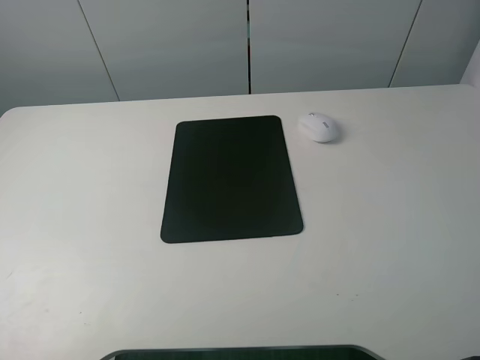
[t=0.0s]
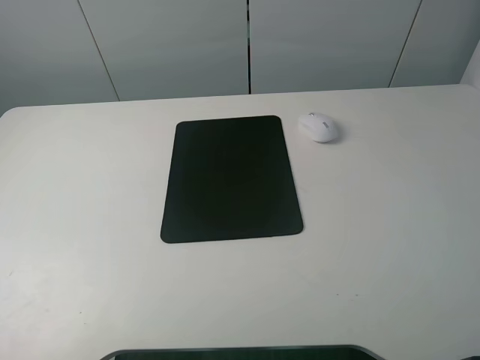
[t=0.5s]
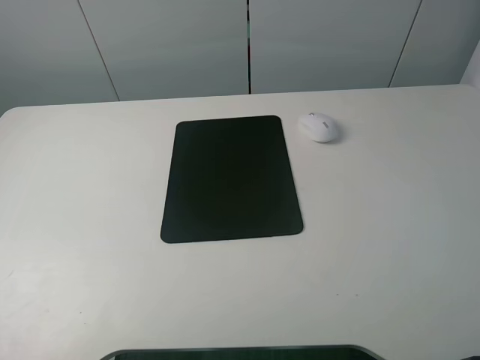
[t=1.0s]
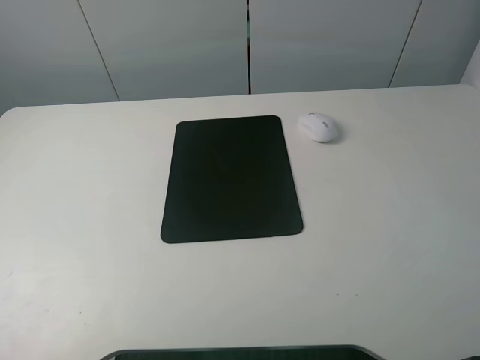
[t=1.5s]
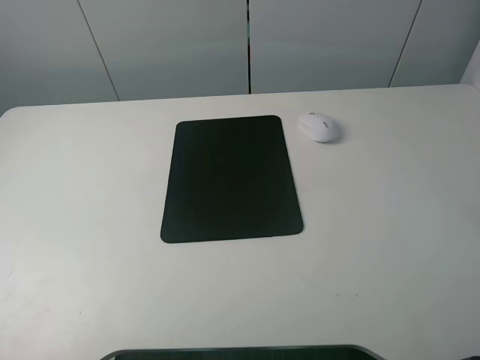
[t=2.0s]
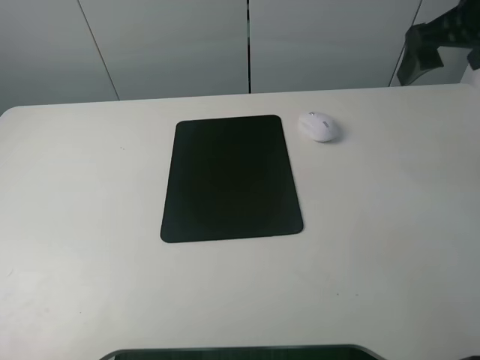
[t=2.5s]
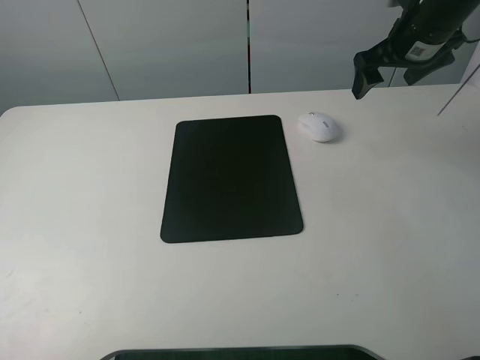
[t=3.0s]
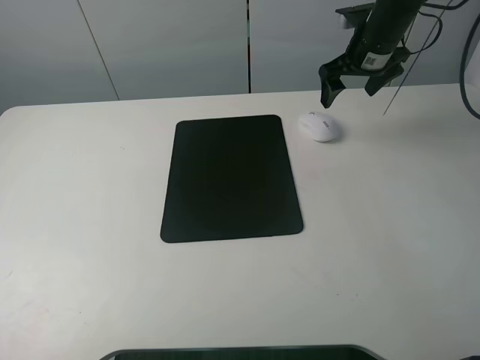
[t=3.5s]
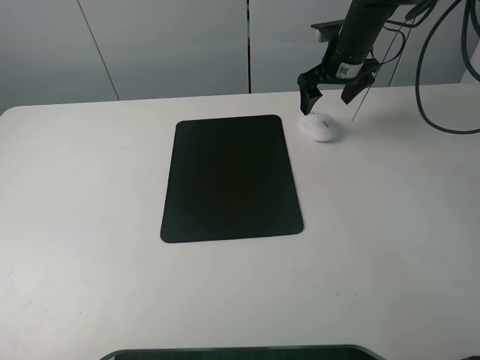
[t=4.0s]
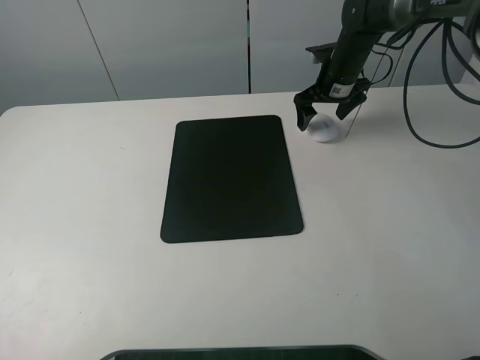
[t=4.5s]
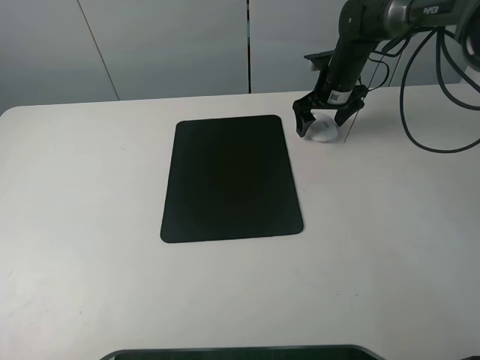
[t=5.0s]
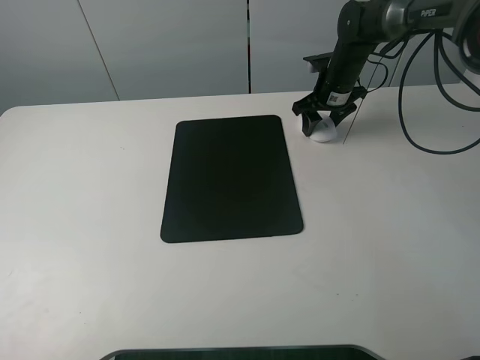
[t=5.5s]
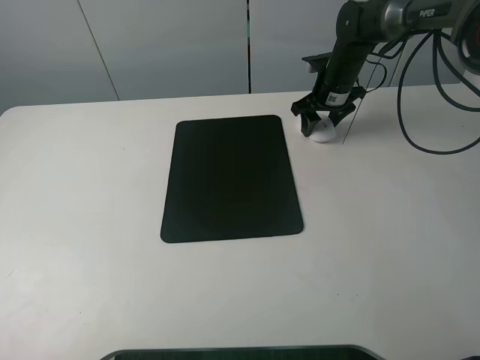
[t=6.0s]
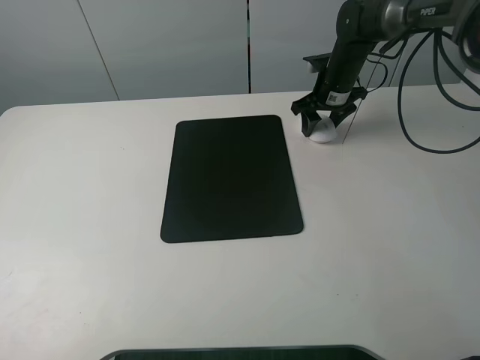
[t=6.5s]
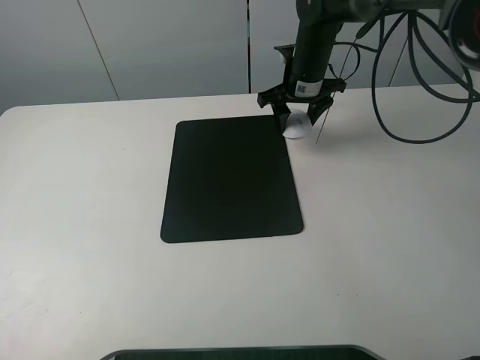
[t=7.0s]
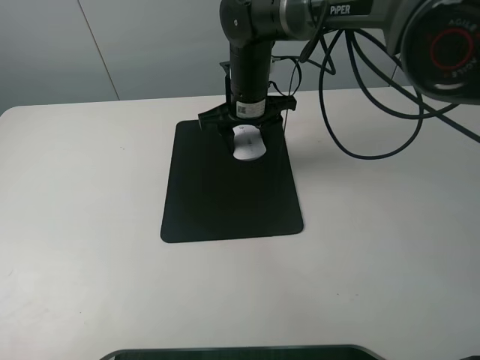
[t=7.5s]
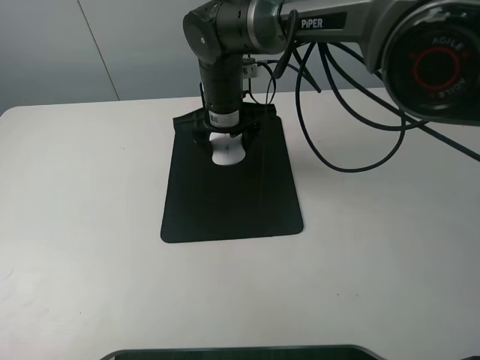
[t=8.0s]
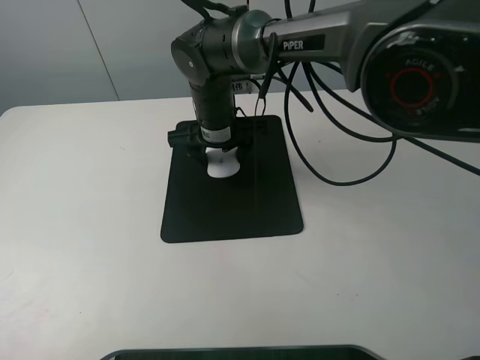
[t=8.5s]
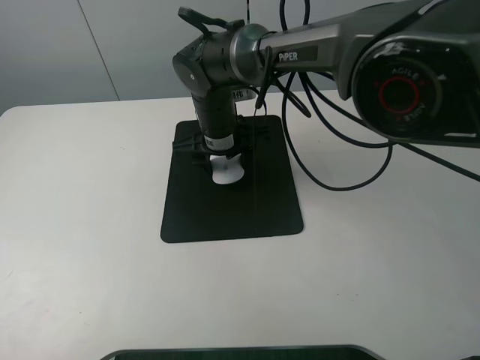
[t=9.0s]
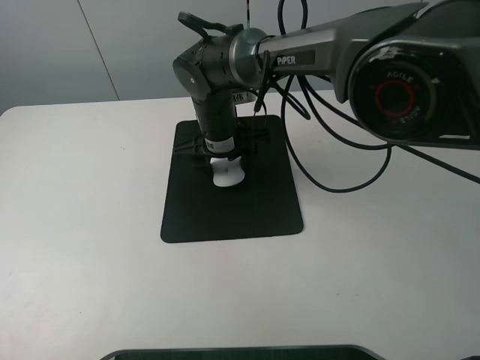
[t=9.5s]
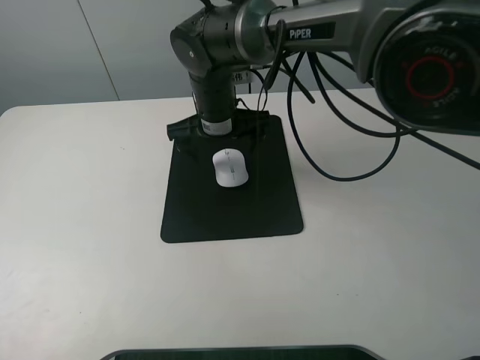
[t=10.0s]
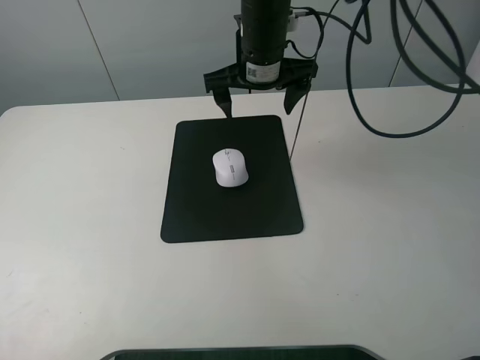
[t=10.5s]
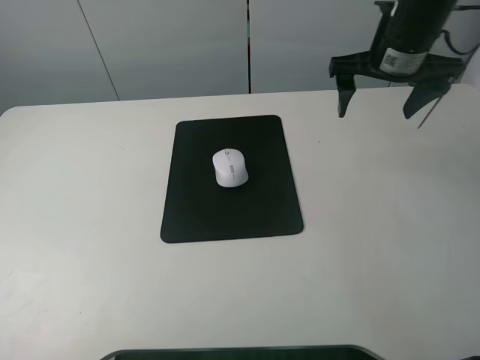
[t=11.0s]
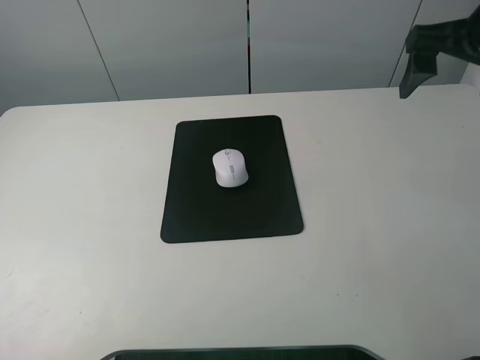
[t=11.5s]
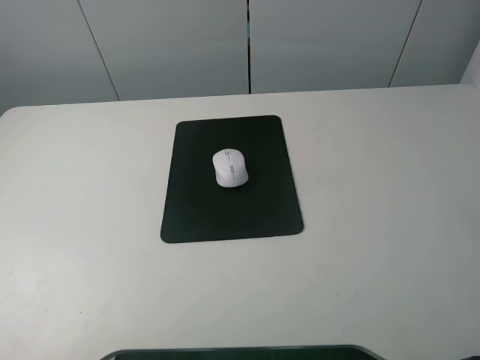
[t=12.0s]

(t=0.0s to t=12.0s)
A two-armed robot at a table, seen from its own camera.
Step, t=0.0s - t=6.0s: Grasp the mouse with the right gripper.
Step, t=6.5s - t=9.5s: Place the mouse on the mouse mat with the right gripper.
t=2.0s - t=4.0s: The right gripper shifts roughly 35 cm forward and downward.
t=4.0s - t=6.0s: The right gripper moves downward, roughly 5 cm, and closes its fingers.
t=6.0s - t=8.0s: The right gripper heads to the left and backward, covering about 25 cm.
t=8.0s - t=10.0s: The right gripper opens.
t=10.0s - t=12.0s: The right gripper moves to the right, upward and backward, roughly 40 cm.

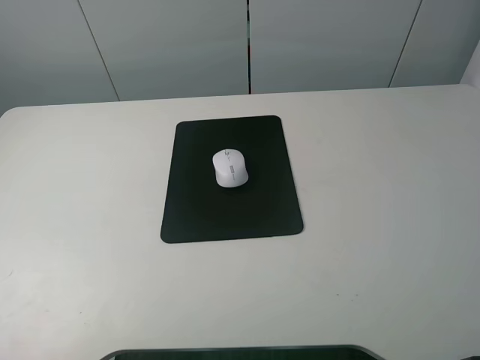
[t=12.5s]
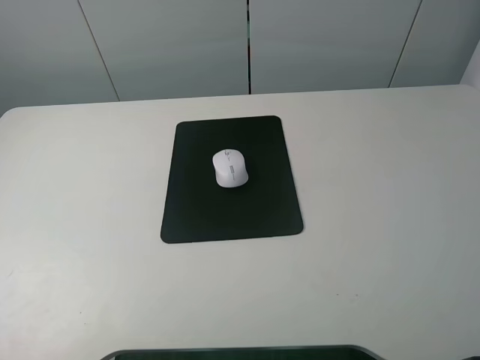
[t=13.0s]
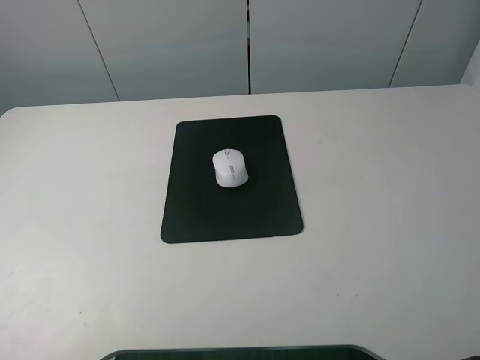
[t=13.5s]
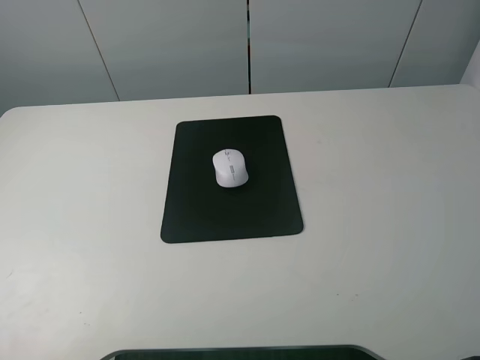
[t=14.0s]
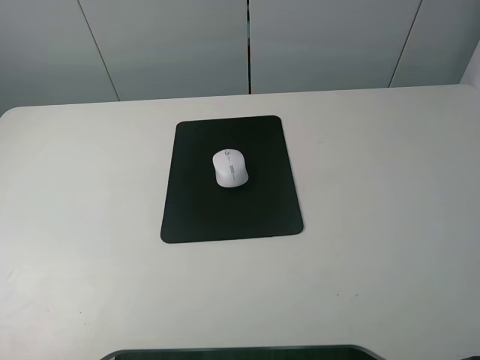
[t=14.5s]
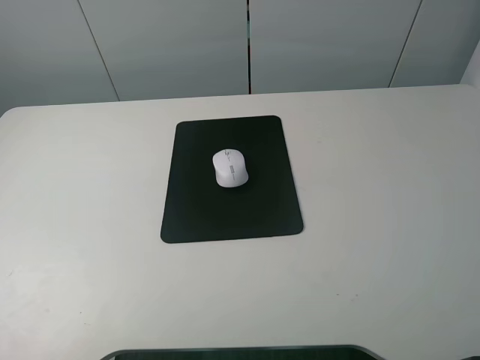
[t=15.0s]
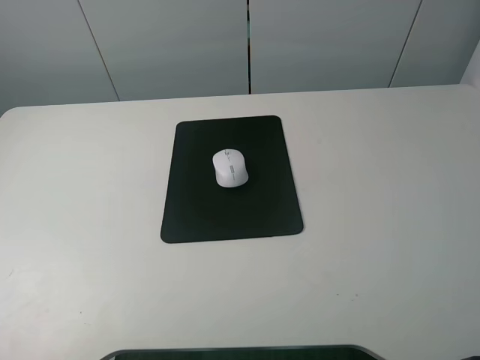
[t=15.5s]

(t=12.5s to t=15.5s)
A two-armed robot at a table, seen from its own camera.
t=14.0s - t=15.5s: Neither gripper changes place.
